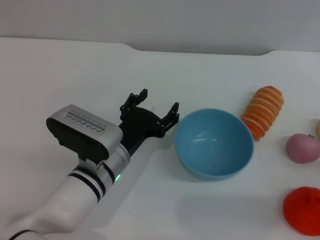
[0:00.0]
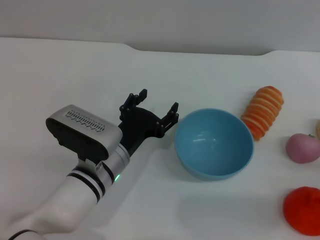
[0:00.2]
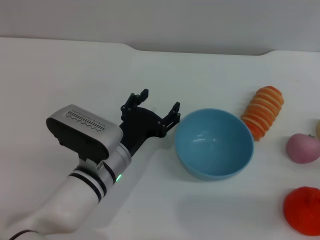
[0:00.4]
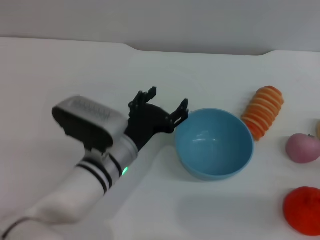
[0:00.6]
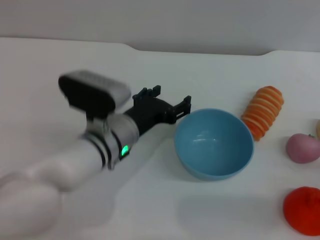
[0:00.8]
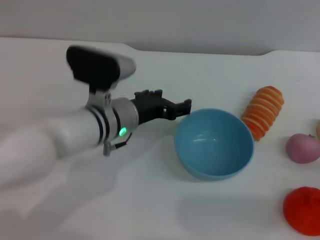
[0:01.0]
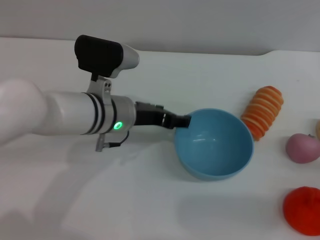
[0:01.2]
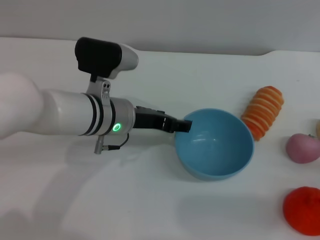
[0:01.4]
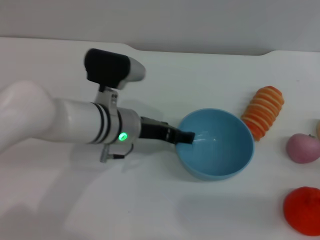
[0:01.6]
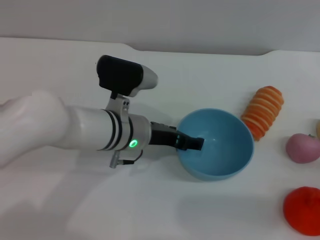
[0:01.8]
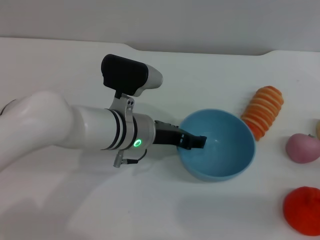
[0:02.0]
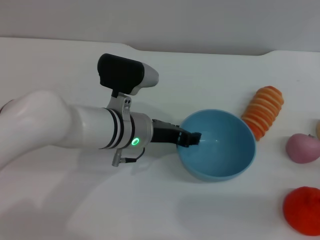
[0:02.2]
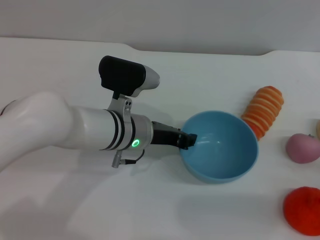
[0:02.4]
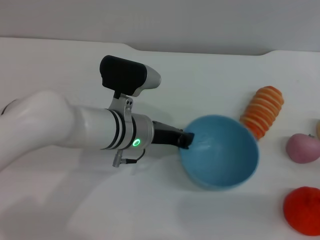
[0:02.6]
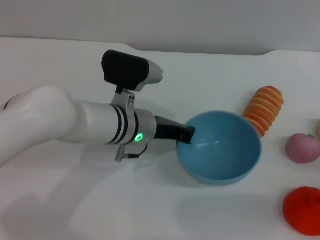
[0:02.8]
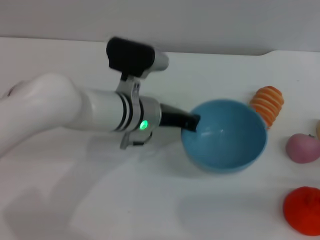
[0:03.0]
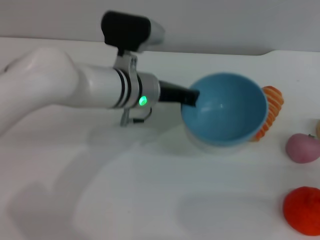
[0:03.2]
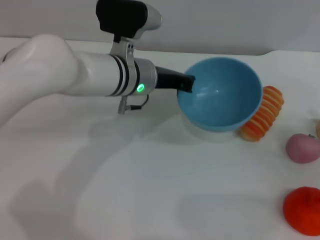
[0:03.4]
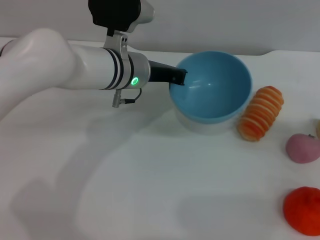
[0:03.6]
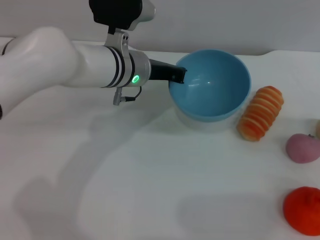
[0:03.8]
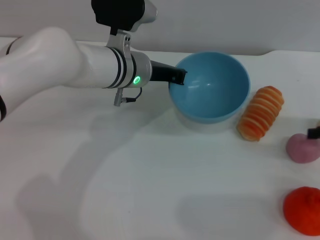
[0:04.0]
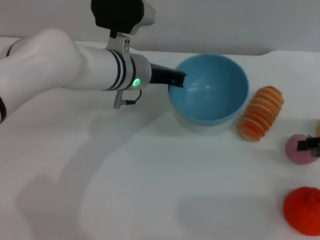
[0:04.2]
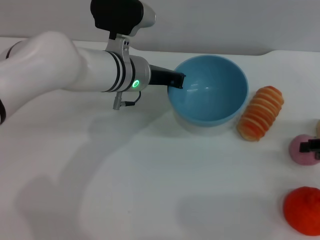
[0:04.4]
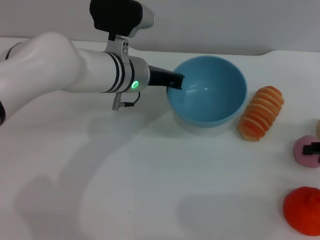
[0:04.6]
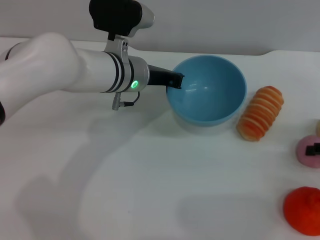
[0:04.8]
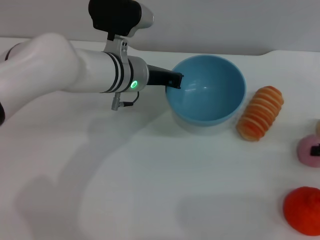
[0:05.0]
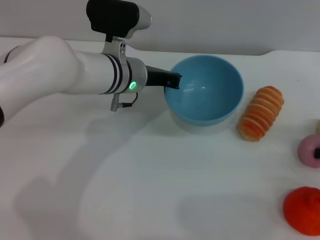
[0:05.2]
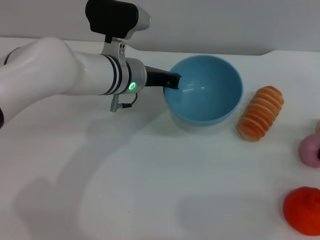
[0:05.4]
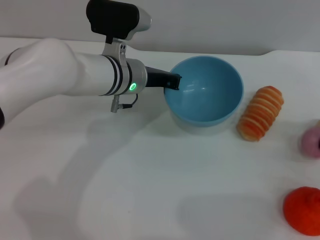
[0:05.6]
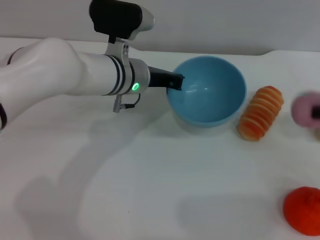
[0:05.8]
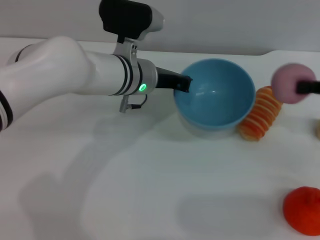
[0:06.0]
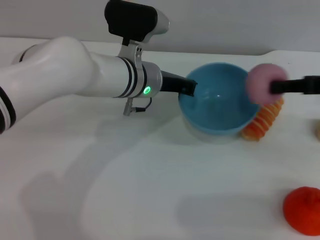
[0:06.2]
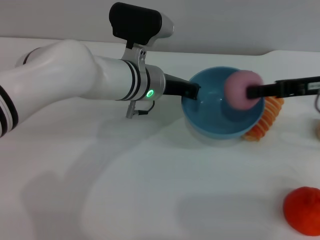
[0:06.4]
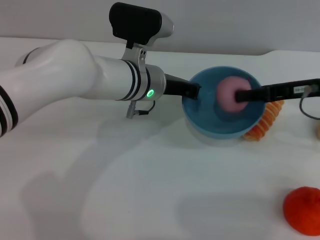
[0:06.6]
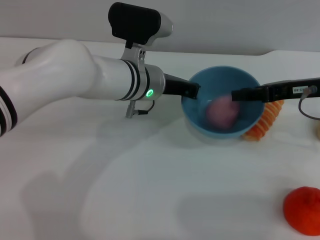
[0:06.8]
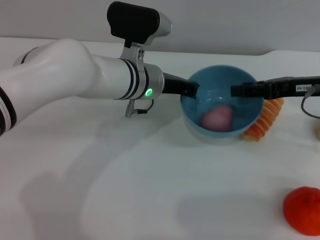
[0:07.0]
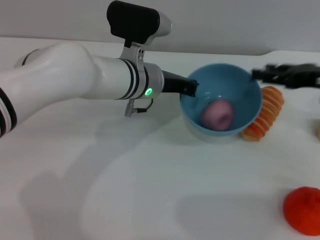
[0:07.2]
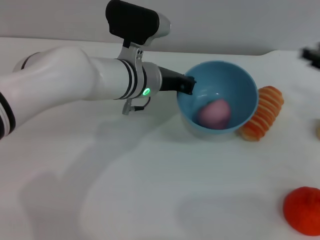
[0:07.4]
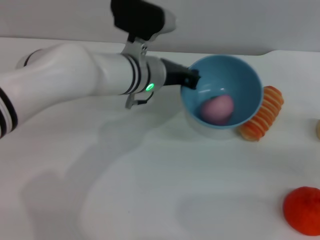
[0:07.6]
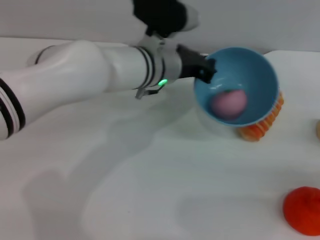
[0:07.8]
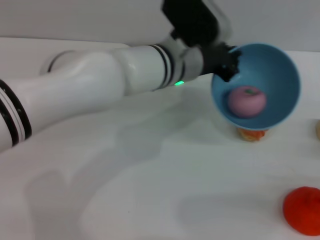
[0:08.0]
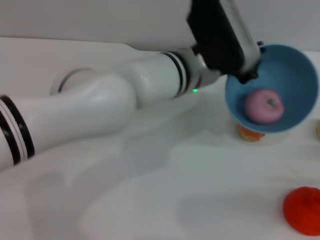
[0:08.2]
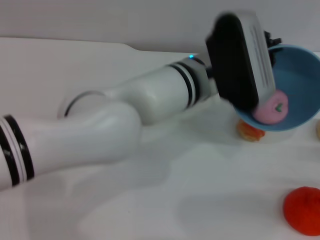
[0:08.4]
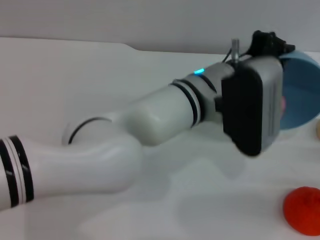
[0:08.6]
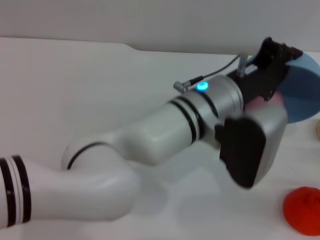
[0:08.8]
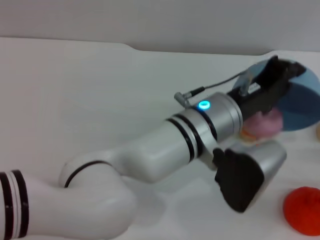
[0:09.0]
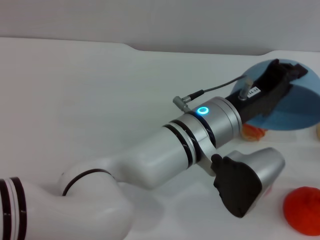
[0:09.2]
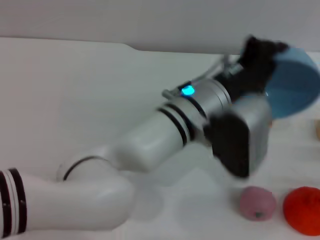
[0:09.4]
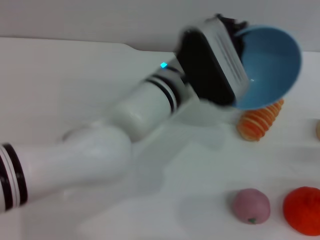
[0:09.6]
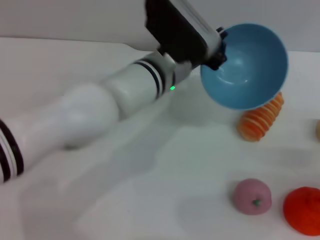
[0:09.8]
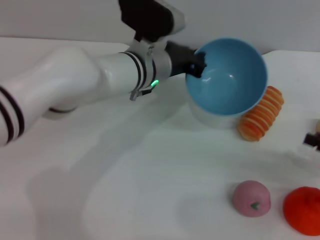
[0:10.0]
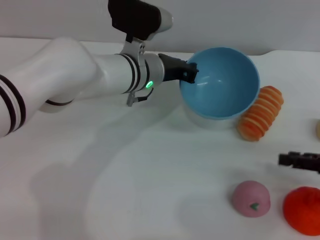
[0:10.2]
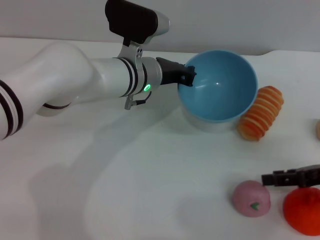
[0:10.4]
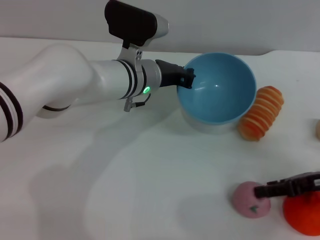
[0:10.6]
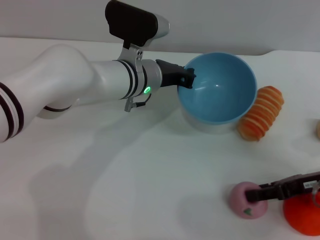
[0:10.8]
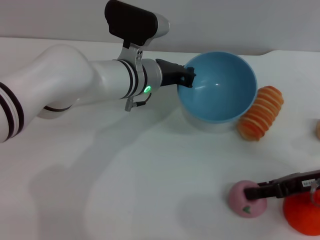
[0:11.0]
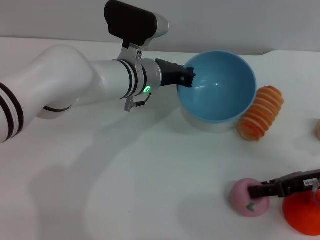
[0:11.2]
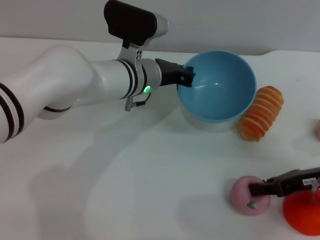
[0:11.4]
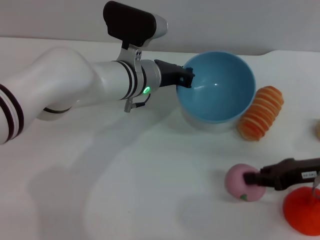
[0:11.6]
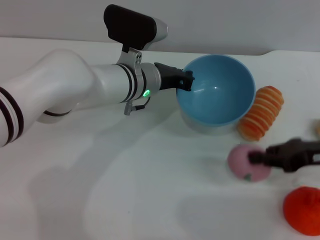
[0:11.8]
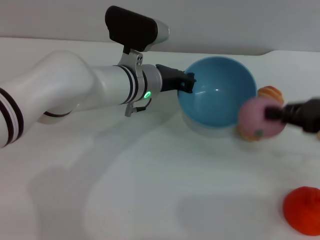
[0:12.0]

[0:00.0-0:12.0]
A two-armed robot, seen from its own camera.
Task of the whole recording: put the peach into the blue bowl and pour it out repeatedly.
Step, 0:00.0 to 0:03.8: Pick up the bowl with the left gripper.
Step, 0:04.0 to 0:05.8: Pick up the peach with the right gripper.
Step, 0:06.0 to 0:07.0: Place the peach into the bowl.
Step, 0:07.4 to 0:09.6: Pour the peach out of bowl.
Step, 0:10.0 to 0:11.6: Pick up the peach with the right gripper.
0:00.0 to 0:01.6: The left gripper goes some 10 cm forward and upward.
0:01.6 to 0:03.0: The left gripper closes up.
0:03.0 to 0:04.4: The left gripper is displaced forward by approximately 5 cm; the right gripper travels forward and upward by some 15 cm.
0:04.4 to 0:06.0: The right gripper travels upward by about 10 cm, and closes.
0:06.0 to 0:07.6: The right gripper travels downward and to the right by some 10 cm, and opens its fingers.
0:07.6 to 0:09.0: The right gripper shifts some 10 cm downward and backward. Meanwhile the left gripper moves backward and to the right, approximately 15 cm.
0:09.0 to 0:10.4: The right gripper goes roughly 10 cm forward, to the left and upward; the left gripper moves forward and to the left, roughly 15 cm.
0:10.4 to 0:12.0: The right gripper moves upward, roughly 5 cm, and closes its fingers.

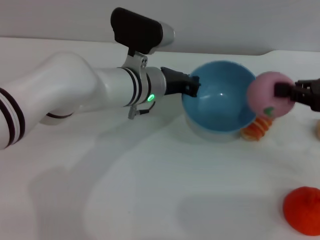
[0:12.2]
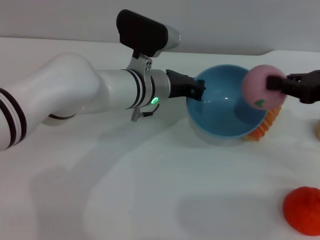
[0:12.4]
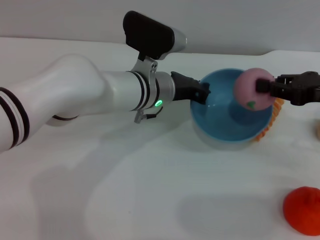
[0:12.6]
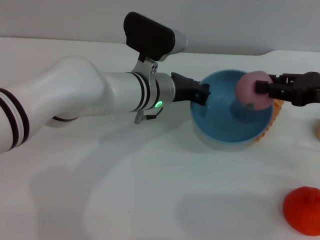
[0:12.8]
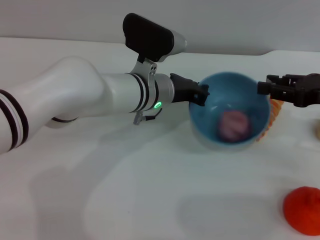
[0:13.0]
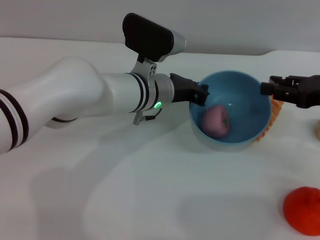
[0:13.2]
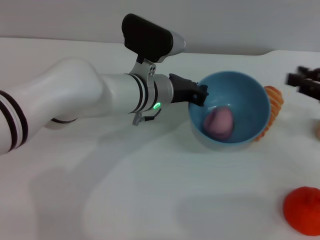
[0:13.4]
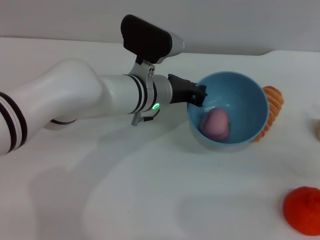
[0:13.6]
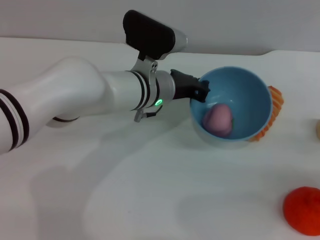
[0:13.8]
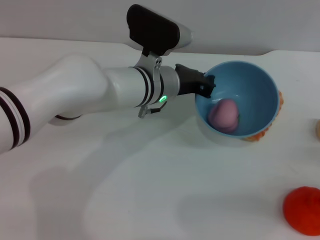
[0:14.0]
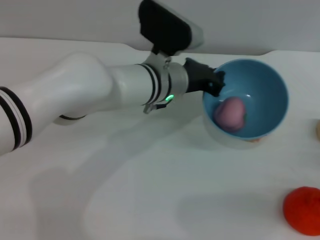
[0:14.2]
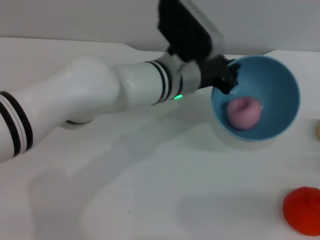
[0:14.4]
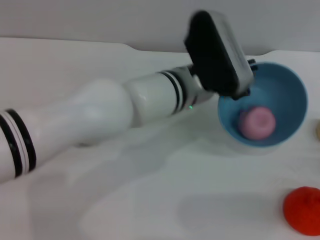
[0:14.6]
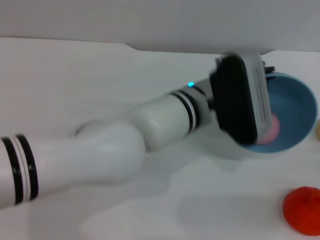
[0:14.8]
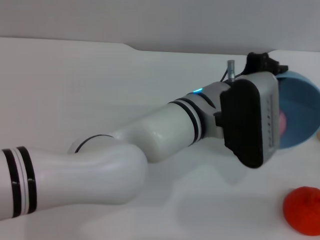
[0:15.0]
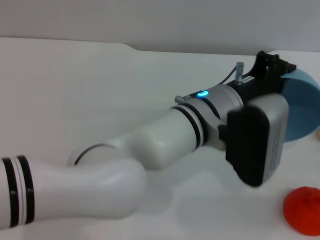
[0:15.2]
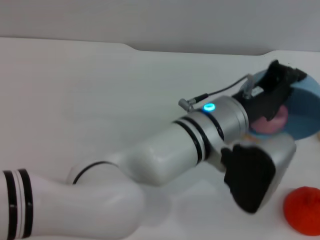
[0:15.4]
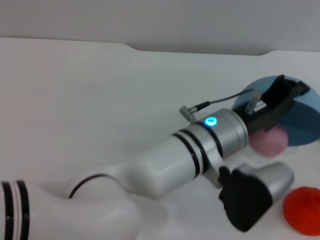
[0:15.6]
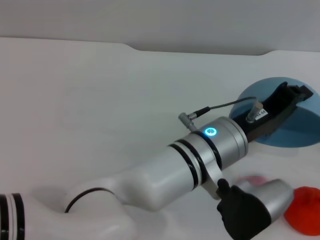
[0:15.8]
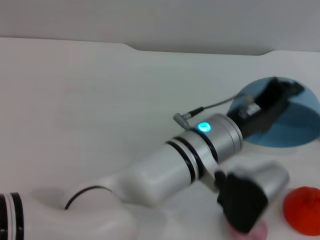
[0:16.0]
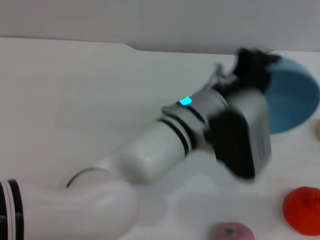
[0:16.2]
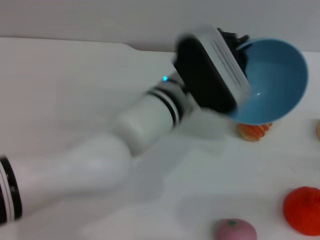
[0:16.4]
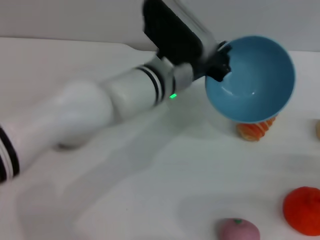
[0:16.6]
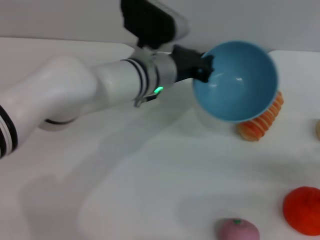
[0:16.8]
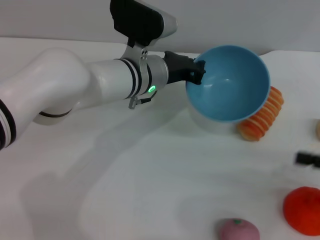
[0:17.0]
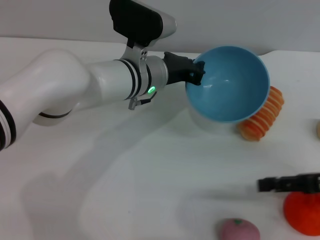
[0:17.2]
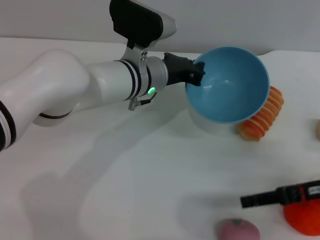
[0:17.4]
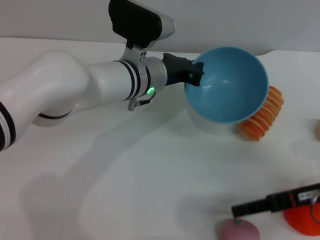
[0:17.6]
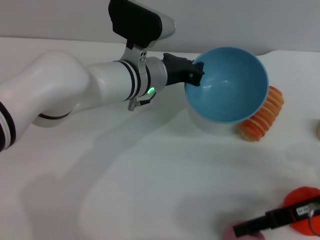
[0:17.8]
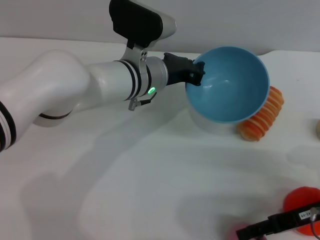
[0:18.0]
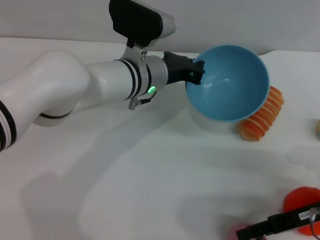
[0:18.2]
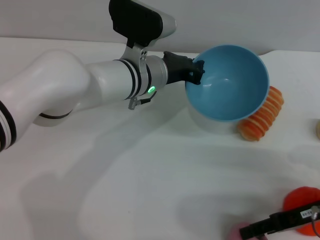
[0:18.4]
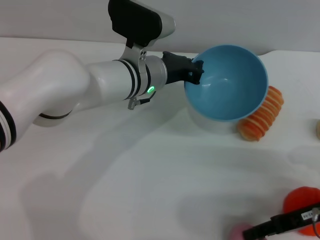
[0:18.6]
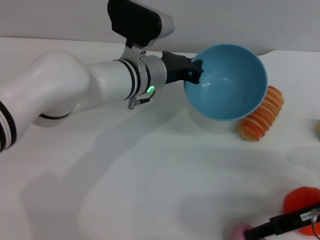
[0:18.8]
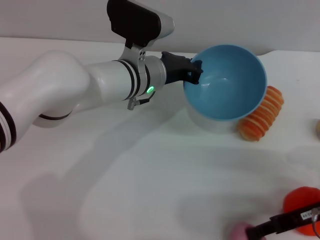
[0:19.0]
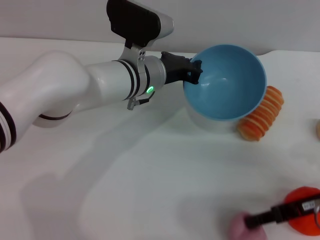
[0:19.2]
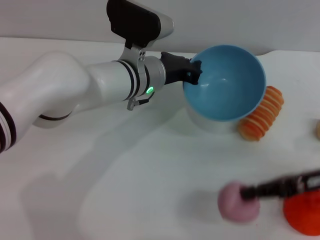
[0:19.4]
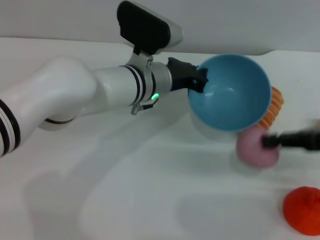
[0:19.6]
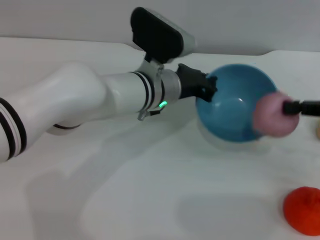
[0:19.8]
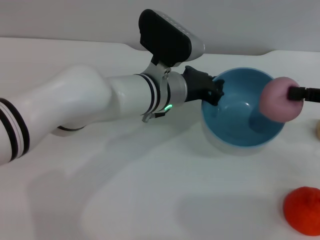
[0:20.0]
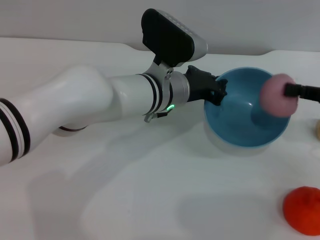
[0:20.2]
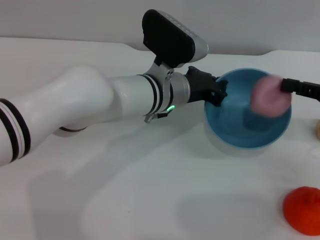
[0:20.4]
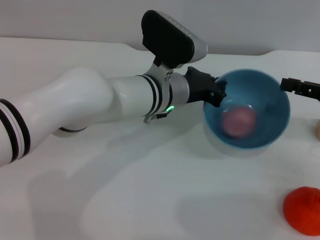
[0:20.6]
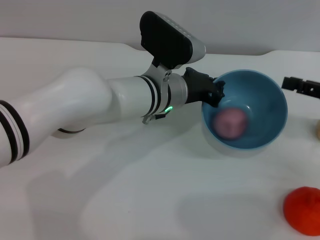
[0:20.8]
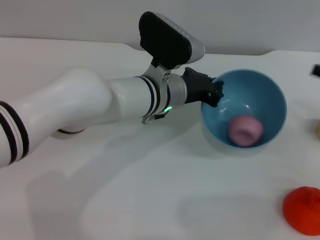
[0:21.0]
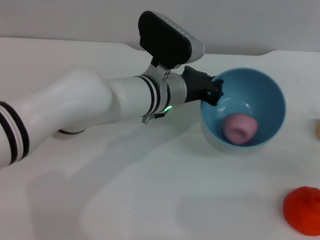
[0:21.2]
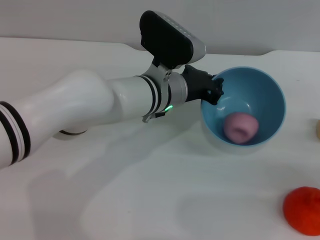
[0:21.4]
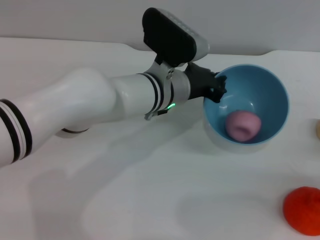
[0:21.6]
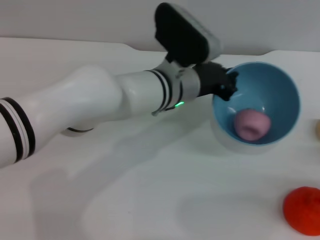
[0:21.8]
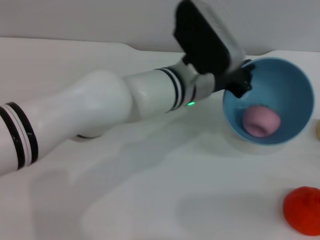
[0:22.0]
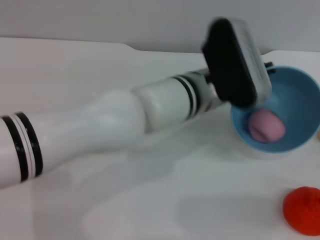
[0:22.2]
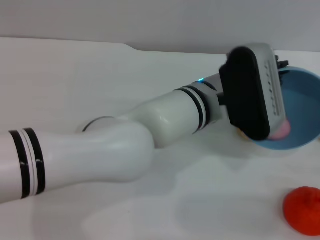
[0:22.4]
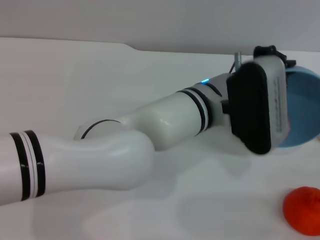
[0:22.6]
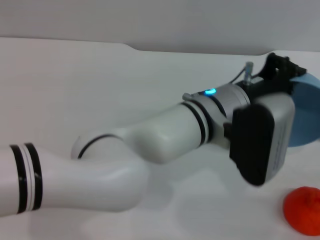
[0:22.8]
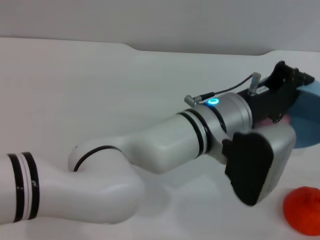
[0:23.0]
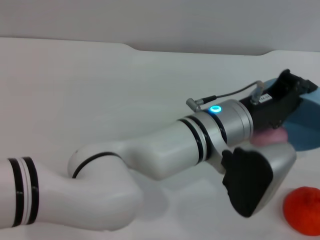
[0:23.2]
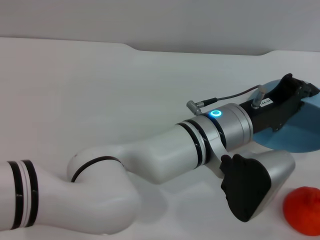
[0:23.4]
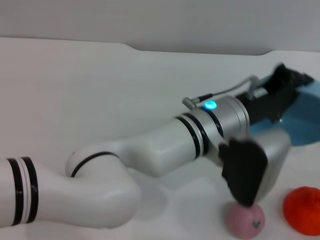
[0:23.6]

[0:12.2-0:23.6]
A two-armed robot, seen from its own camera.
Task of the whole recording: put the peach into the blue bowl and pour it out repeatedly.
Step, 0:12.2 to 0:13.0: Place the peach into the bowl.
Step, 0:13.4 to 0:15.8: Pour the peach out of bowl.
Step, 0:16.0 to 0:19.4: Pick up the peach with the right gripper.
Step, 0:19.6 to 0:21.2: Place the peach into the bowl.
0:12.2 to 0:13.6: The right gripper moves downward and to the right, roughly 10 cm, and opens up.
0:13.6 to 0:15.0: The right gripper goes about 10 cm backward and downward. The left gripper is displaced to the right and backward by some 10 cm.
0:16.4 to 0:17.8: The left gripper moves forward and to the left, roughly 10 cm; the right gripper shifts approximately 15 cm to the left and forward.
0:17.8 to 0:19.4: The right gripper closes up.
0:19.4 to 0:20.8: The right gripper goes about 5 cm to the right, and opens its fingers.
0:20.8 to 0:22.2: The right gripper travels downward, backward and to the right by roughly 20 cm, and opens. The left gripper heads to the right, covering roughly 5 cm.
0:22.2 to 0:23.6: The left gripper shifts by about 5 cm.
